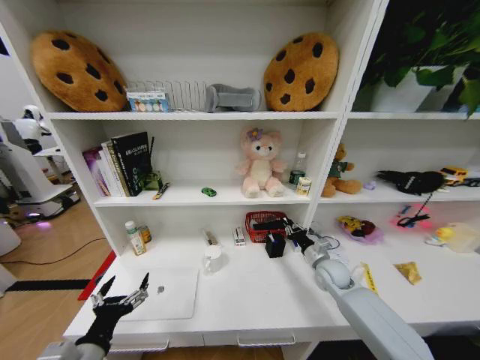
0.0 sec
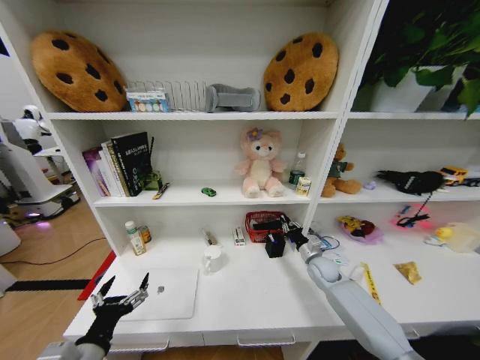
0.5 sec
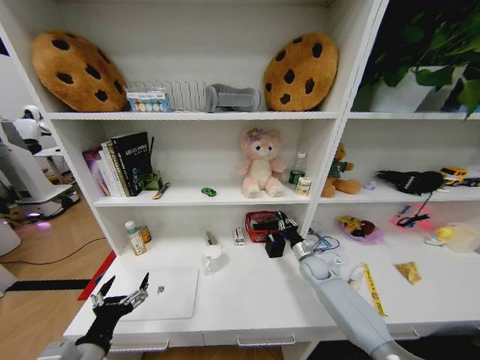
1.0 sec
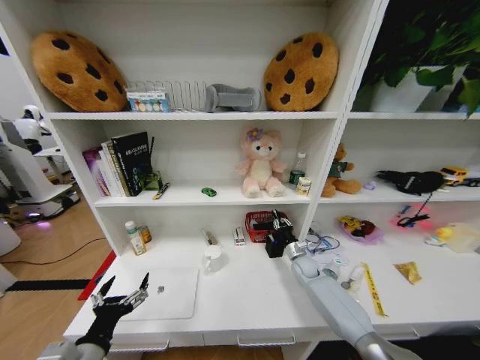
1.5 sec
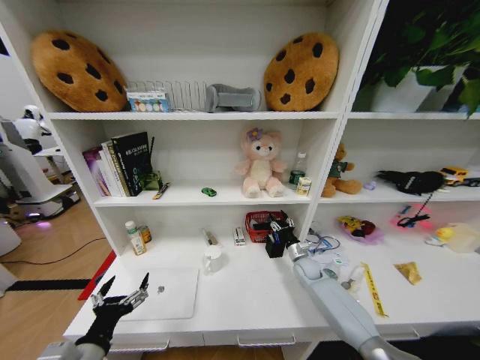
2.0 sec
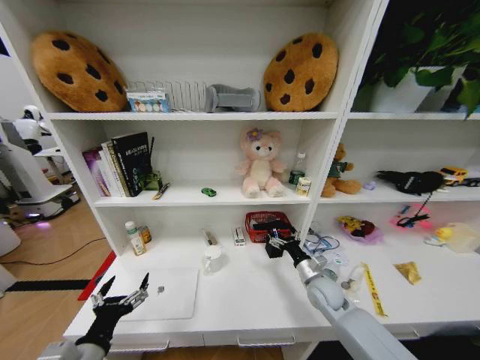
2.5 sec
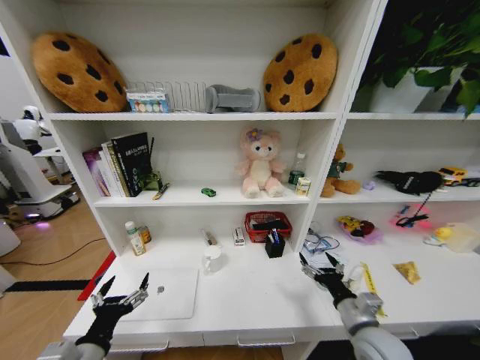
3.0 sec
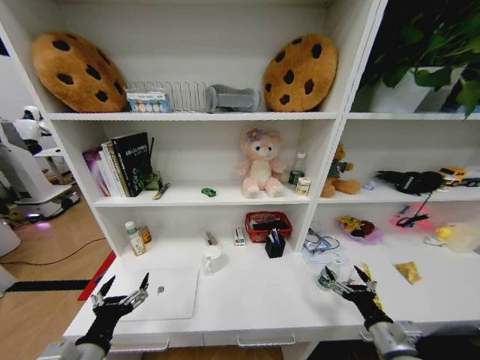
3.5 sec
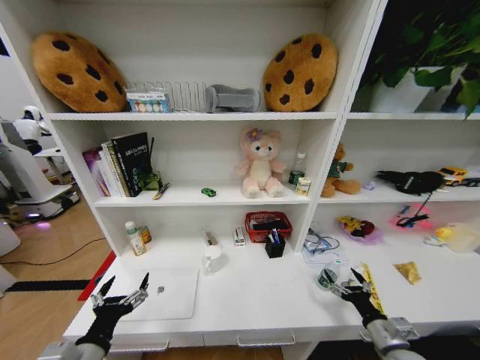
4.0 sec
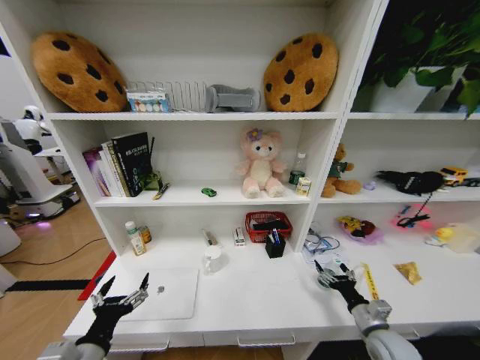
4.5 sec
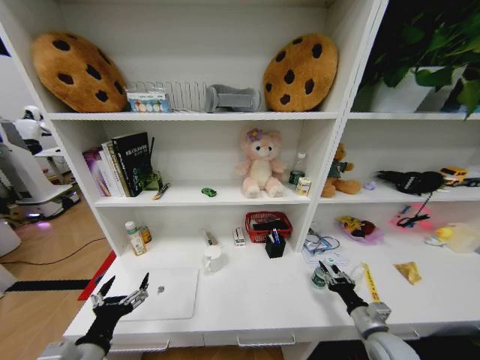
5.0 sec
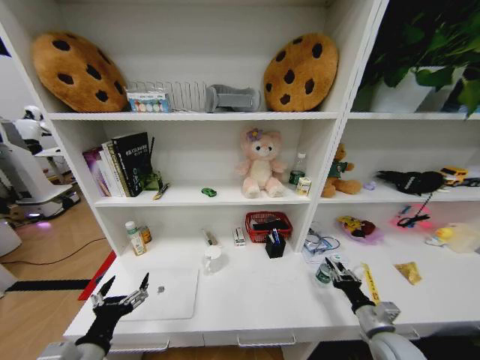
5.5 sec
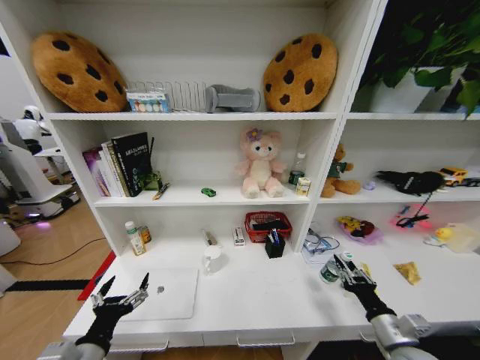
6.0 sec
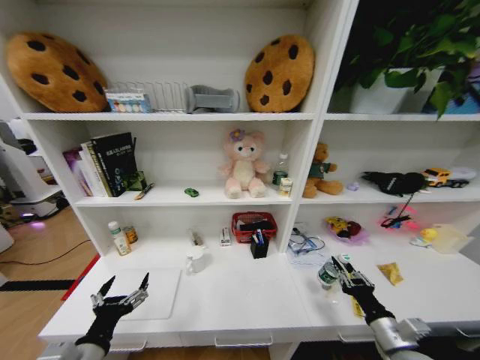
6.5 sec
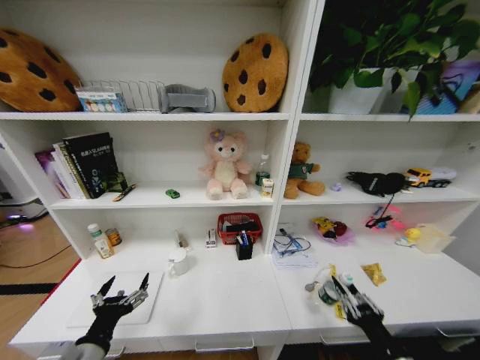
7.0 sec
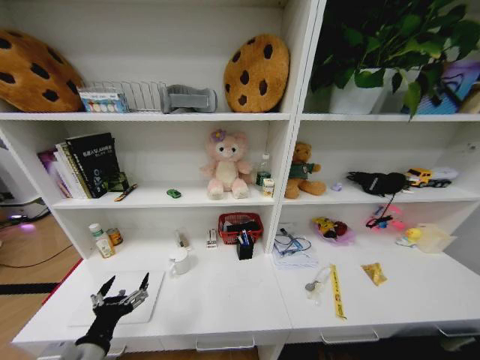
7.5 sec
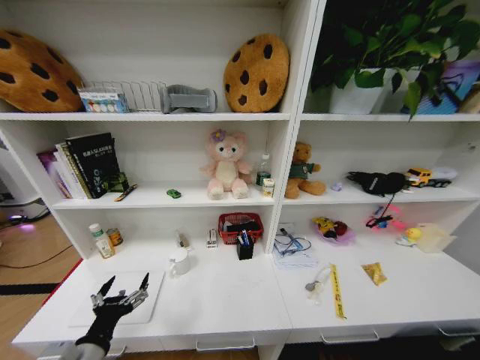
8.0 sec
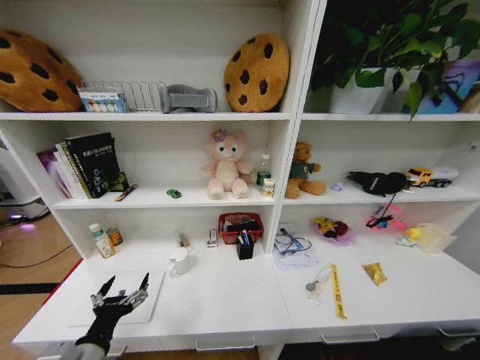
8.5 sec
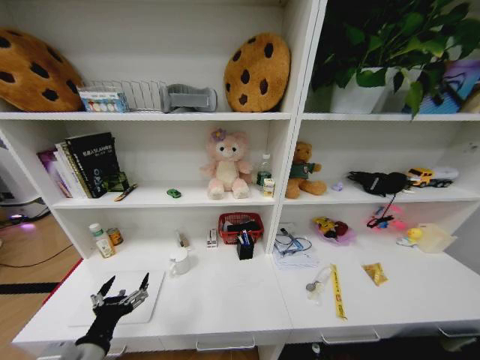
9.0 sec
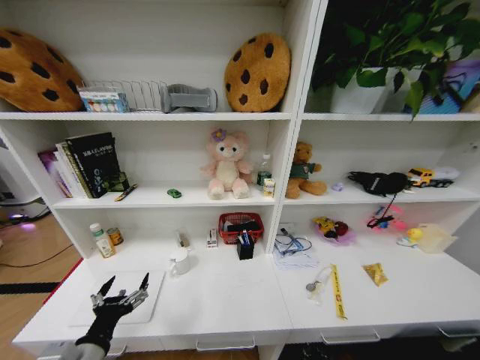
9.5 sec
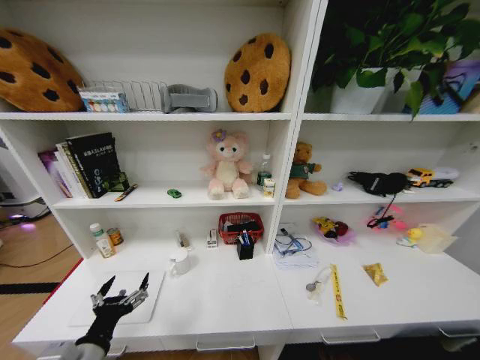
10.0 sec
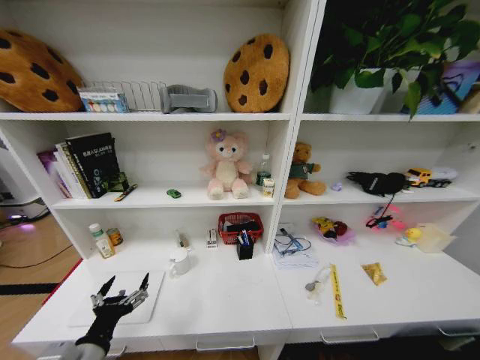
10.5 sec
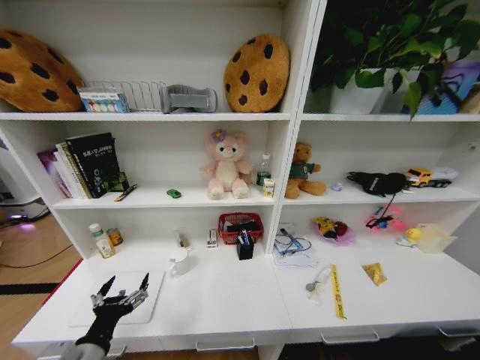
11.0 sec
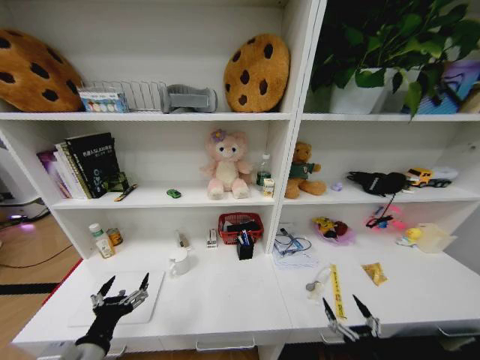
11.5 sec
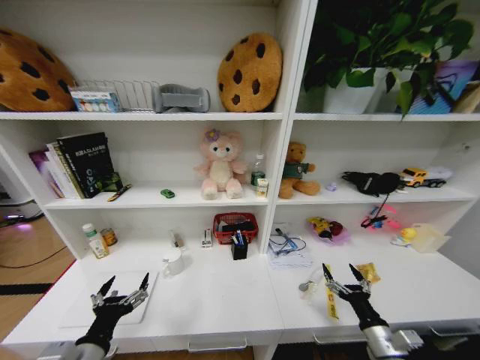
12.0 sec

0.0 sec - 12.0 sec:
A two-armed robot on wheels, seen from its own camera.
Task of the whole recording: Organize the objects on the table.
0.0 sec - 2.0 sec: The right gripper goes approximately 10 cm downward and forward, and opens.
2.0 sec - 4.0 sec: The right gripper goes about 30 cm backward, and opens its fingers.
4.0 sec - 6.0 sec: The right gripper heads upward, covering approximately 5 cm, and closes its fingers.
6.0 sec - 8.0 sec: The right gripper shifts about 35 cm backward and downward.
8.0 sec - 10.0 sec: The right gripper travels forward and downward by some 25 cm, and opens up.
10.0 sec - 12.0 sec: The right gripper travels upward by about 35 cm.

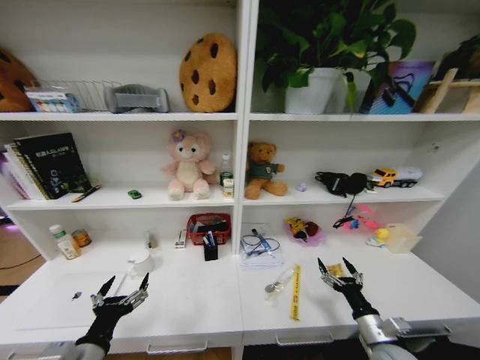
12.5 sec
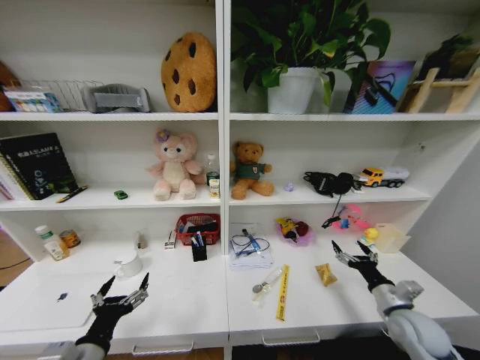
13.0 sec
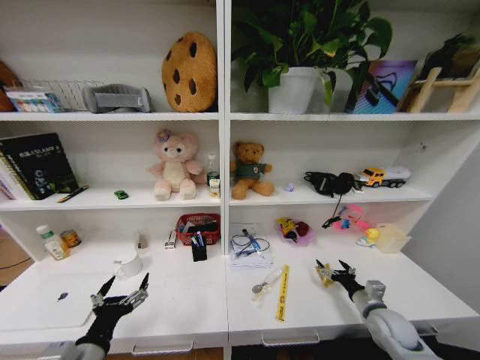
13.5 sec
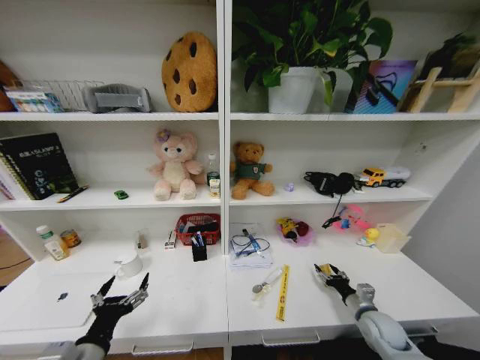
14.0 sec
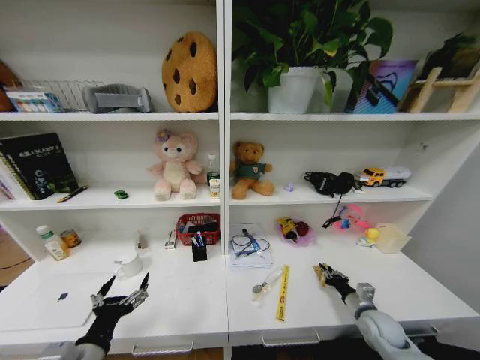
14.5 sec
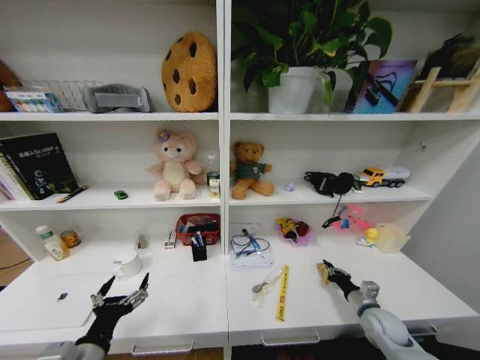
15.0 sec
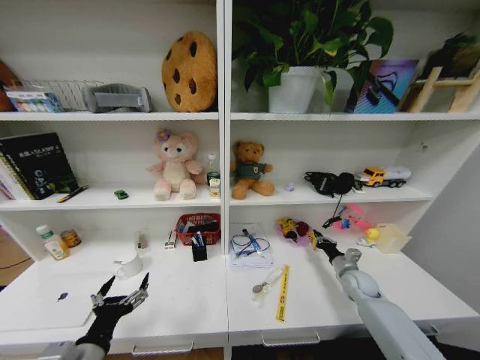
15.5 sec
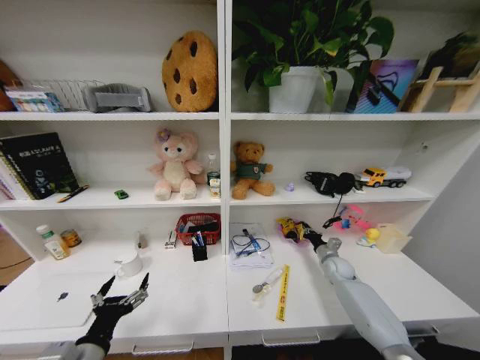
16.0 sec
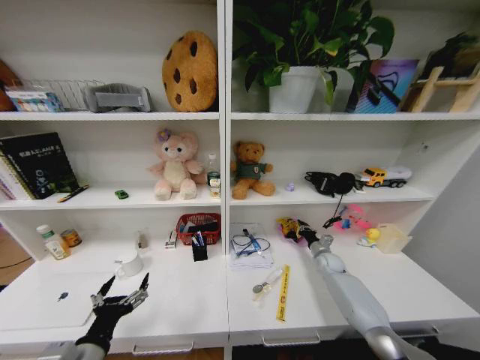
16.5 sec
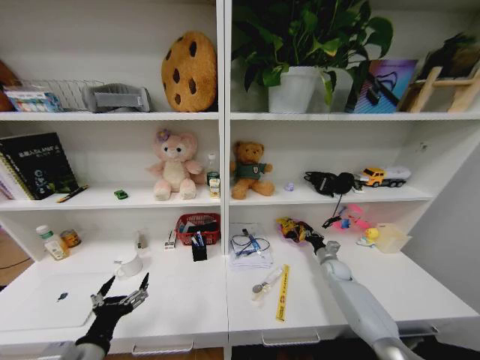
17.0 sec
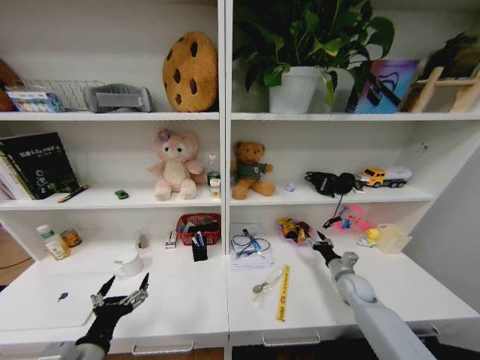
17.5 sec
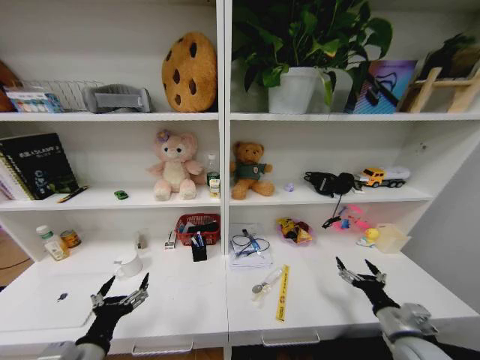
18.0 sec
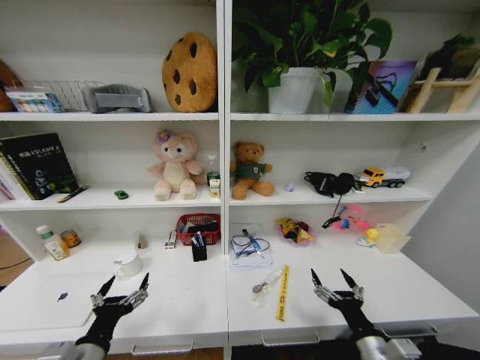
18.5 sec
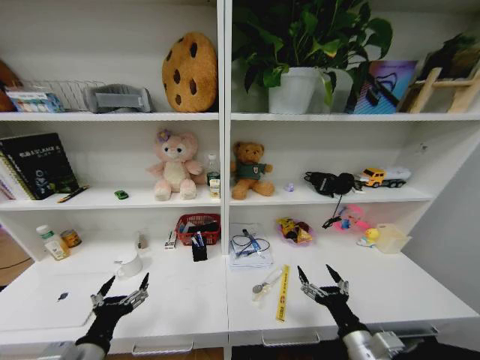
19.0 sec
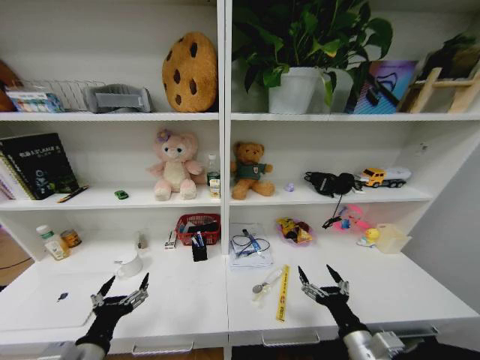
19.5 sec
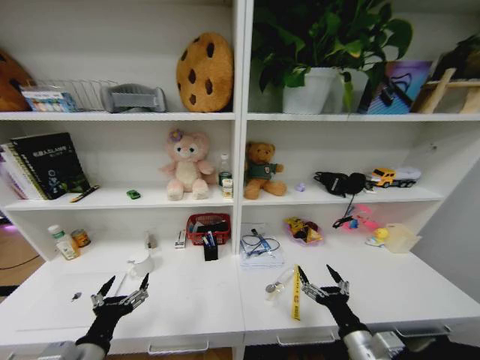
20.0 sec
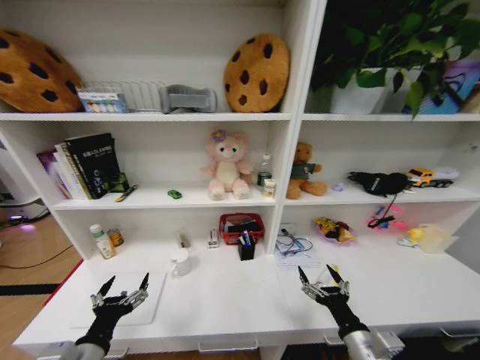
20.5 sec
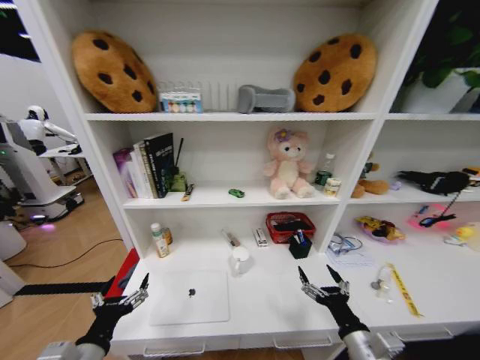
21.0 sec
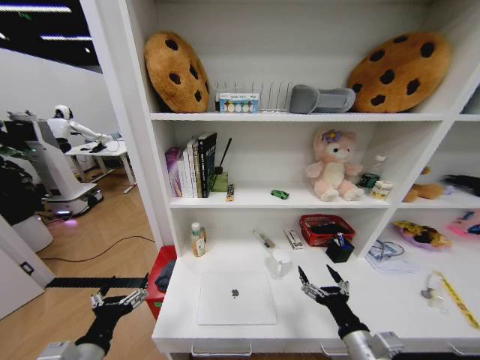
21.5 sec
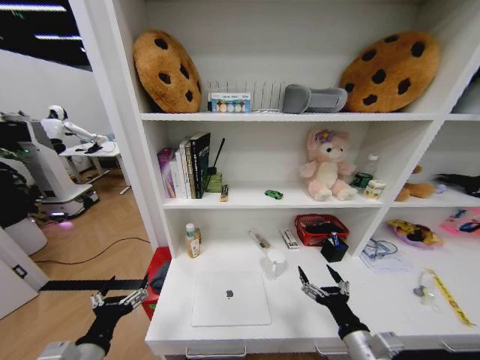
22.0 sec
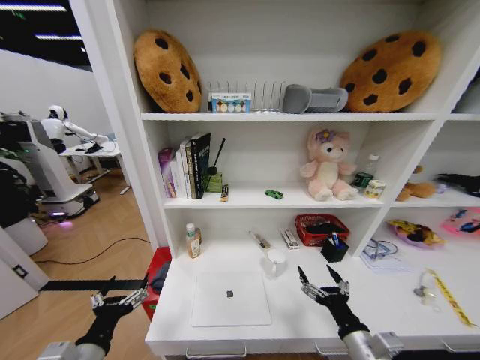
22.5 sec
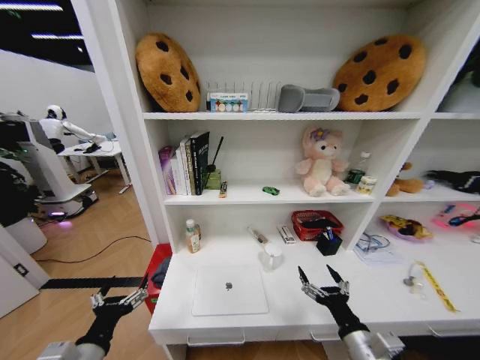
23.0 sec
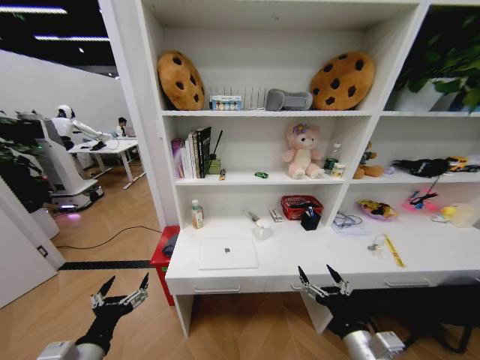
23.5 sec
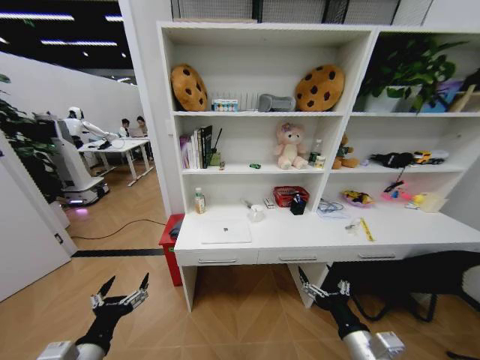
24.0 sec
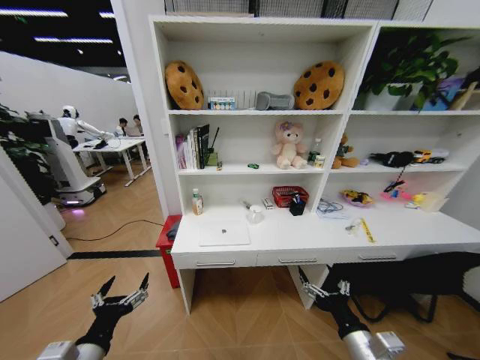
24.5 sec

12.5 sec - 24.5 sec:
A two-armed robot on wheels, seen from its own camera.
Task of the whole recording: Organize the objects on the table.
12.5 sec - 14.5 sec: The right gripper goes about 10 cm forward, and closes.
14.5 sec - 16.5 sec: The right gripper heads forward, covering about 20 cm.
16.5 sec - 18.5 sec: The right gripper is displaced backward by some 35 cm, and opens up.
